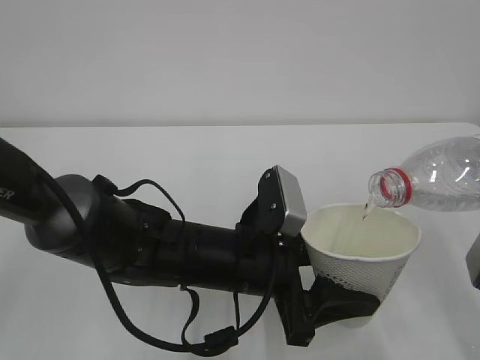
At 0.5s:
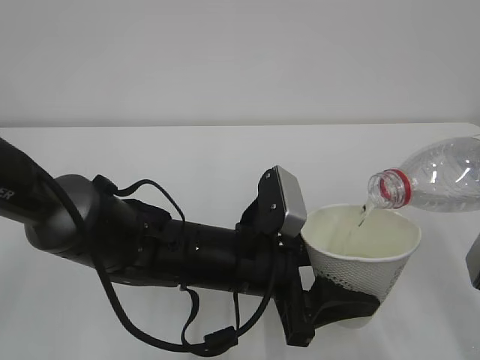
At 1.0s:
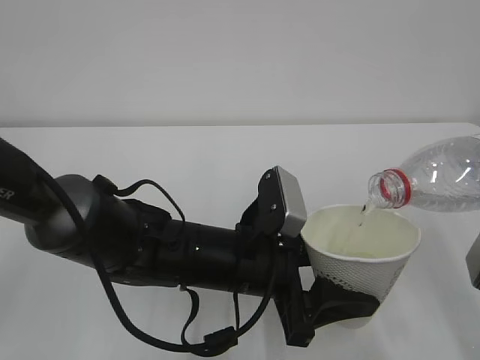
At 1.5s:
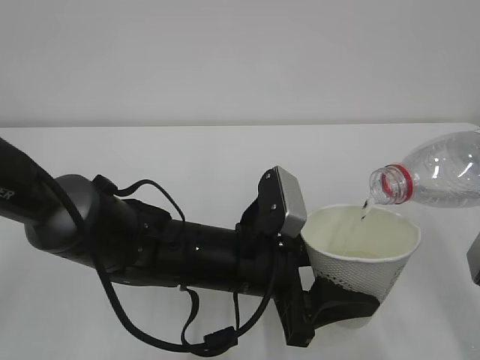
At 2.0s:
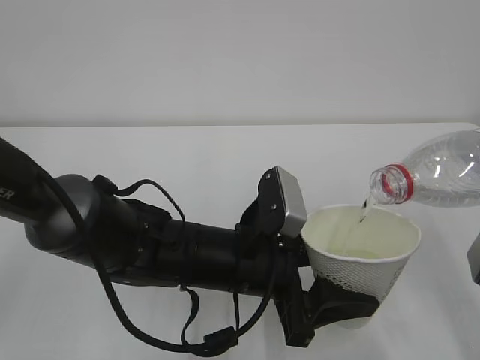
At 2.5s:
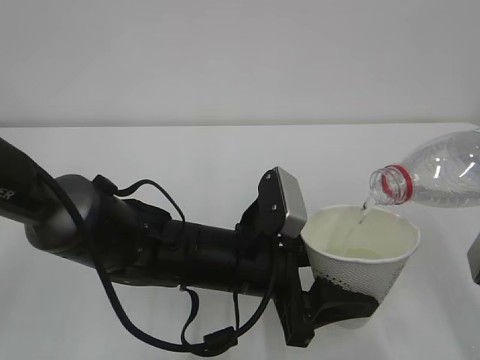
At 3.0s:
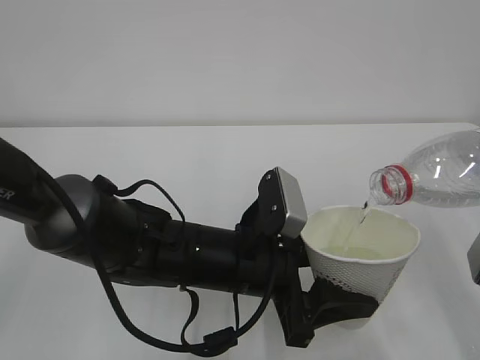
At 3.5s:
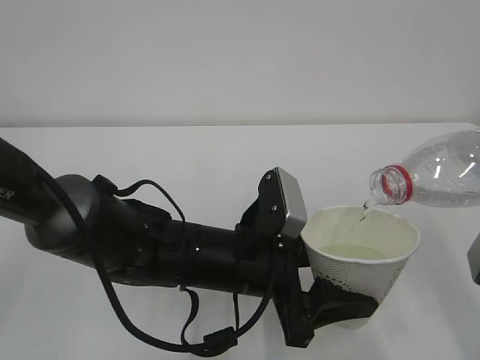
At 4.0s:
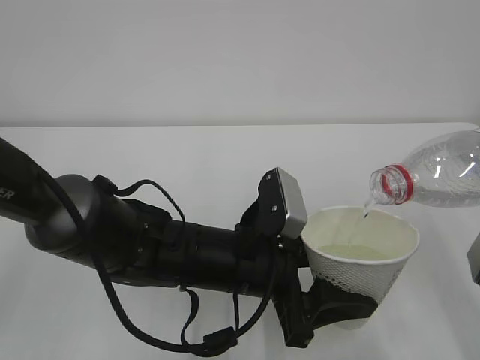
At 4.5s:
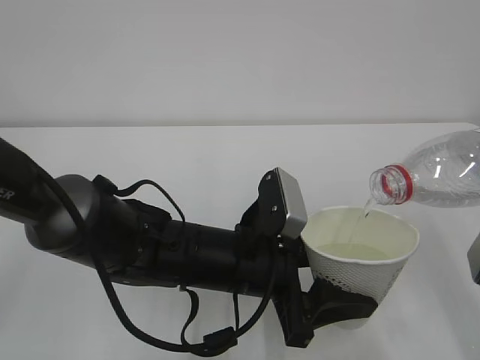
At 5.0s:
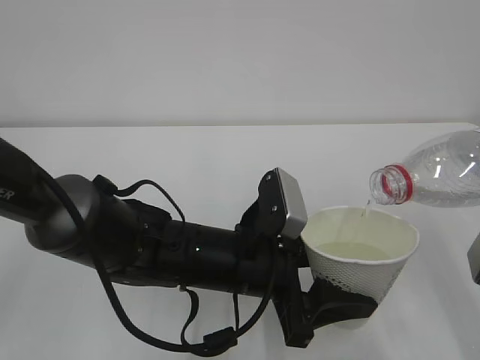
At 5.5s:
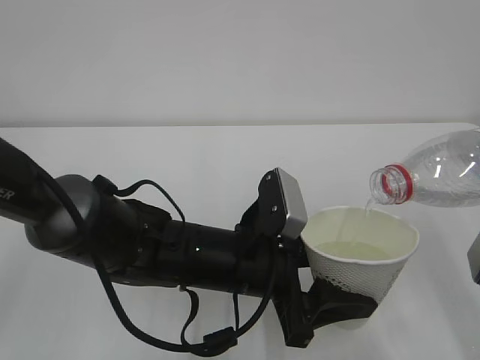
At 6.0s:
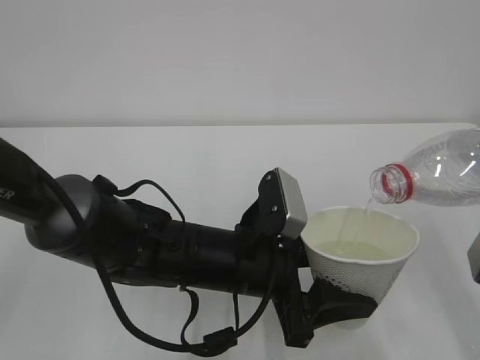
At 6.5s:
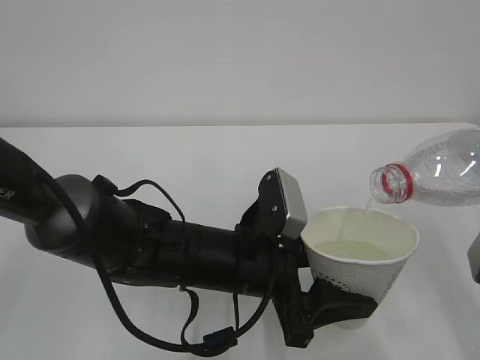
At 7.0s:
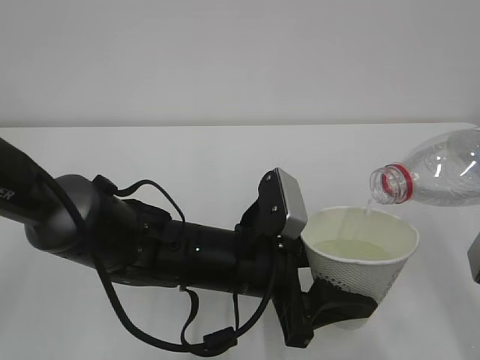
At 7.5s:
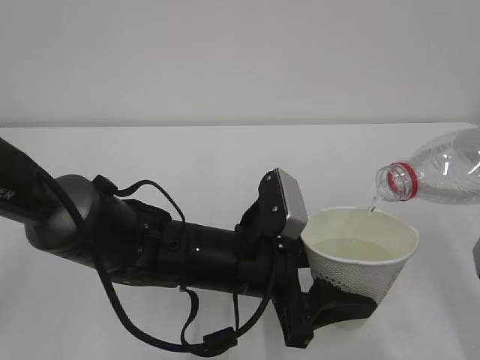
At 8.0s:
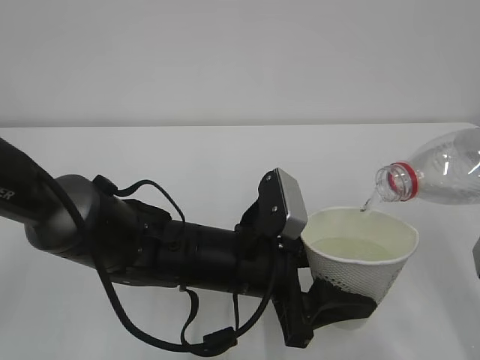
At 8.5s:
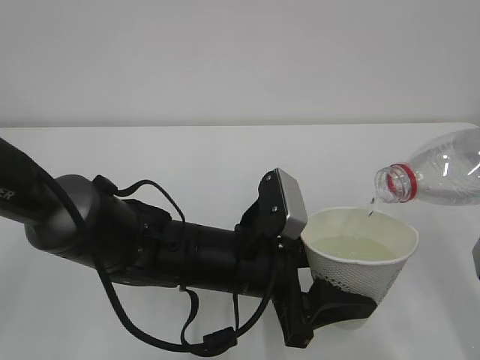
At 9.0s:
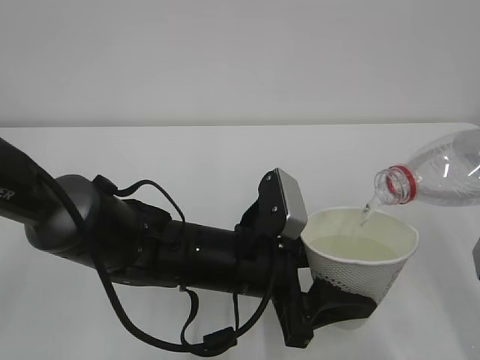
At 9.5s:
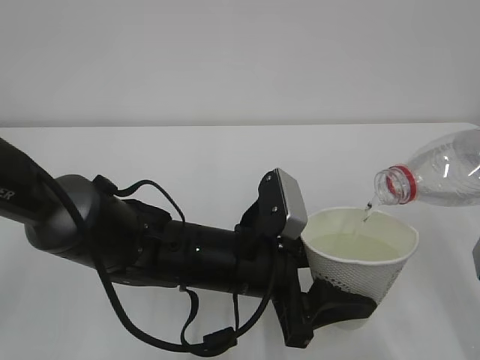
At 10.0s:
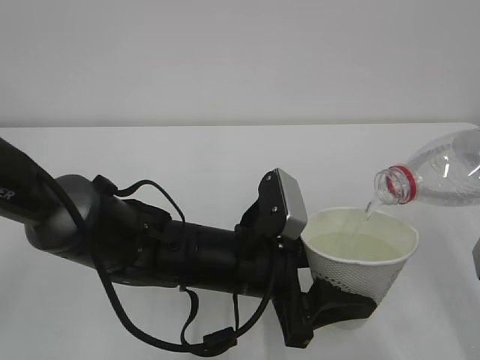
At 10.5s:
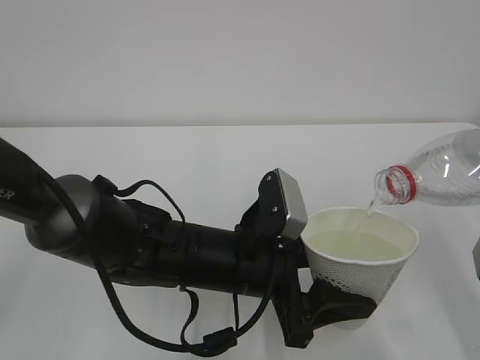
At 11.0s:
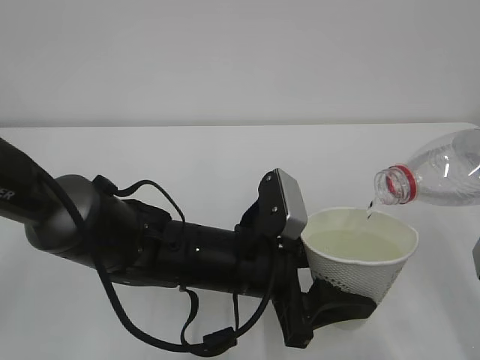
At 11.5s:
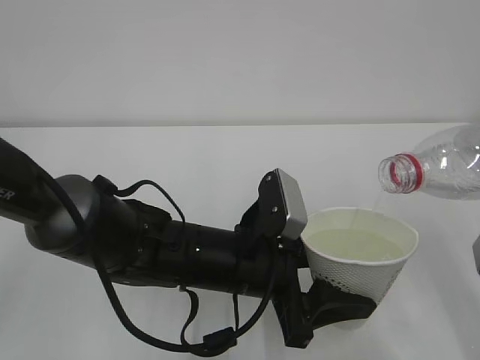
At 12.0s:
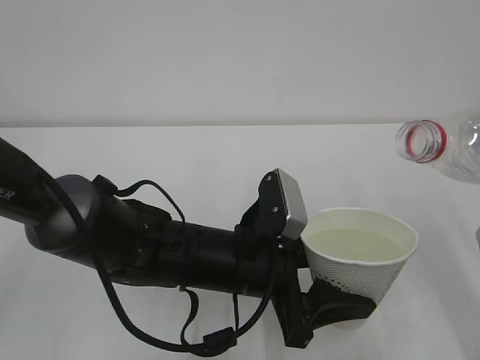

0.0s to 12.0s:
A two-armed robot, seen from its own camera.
0.0s to 8.0s: Both grippers stay put.
8.0s to 10.0s: The two grippers keep their place.
10.0s to 12.0s: The grippers make only small movements.

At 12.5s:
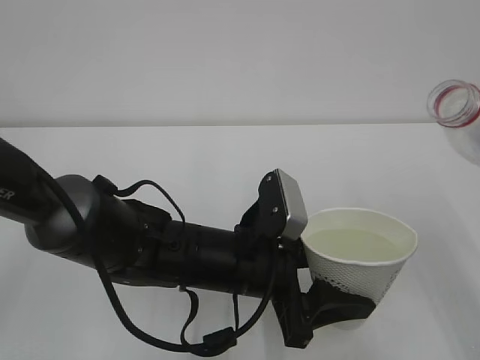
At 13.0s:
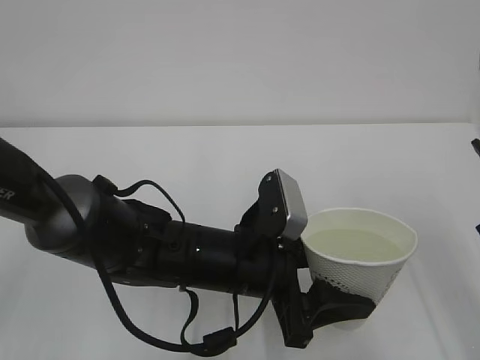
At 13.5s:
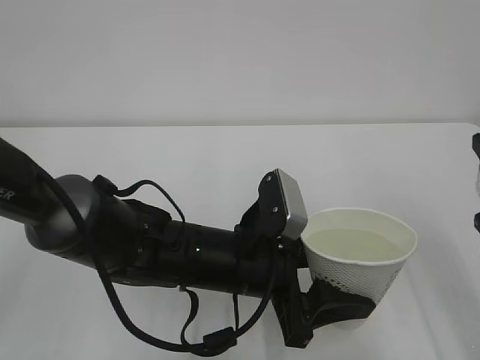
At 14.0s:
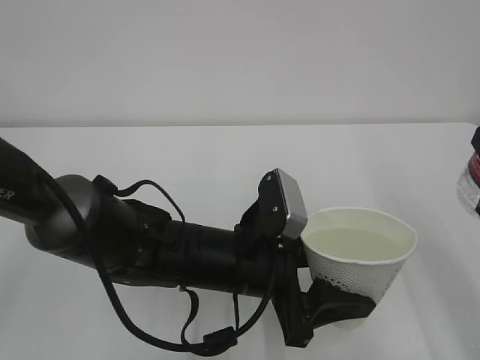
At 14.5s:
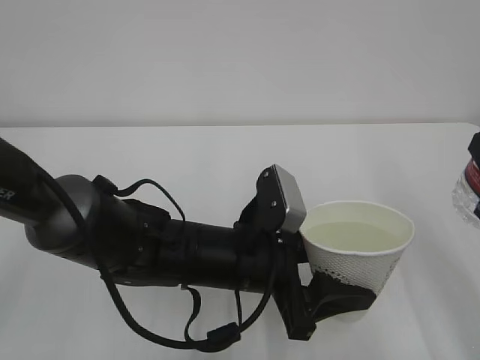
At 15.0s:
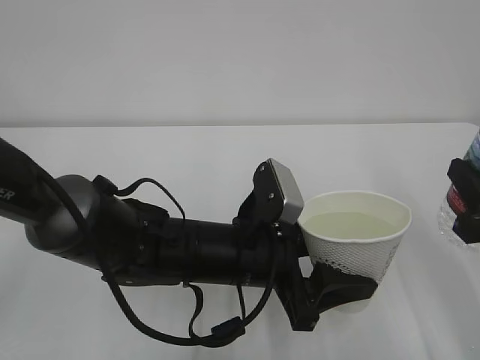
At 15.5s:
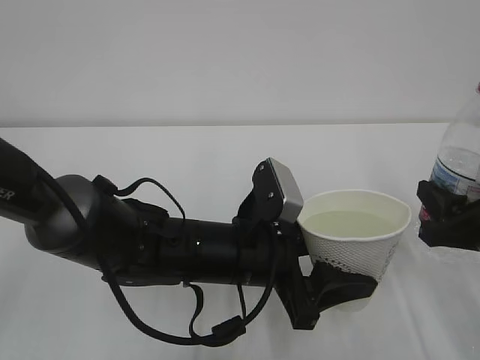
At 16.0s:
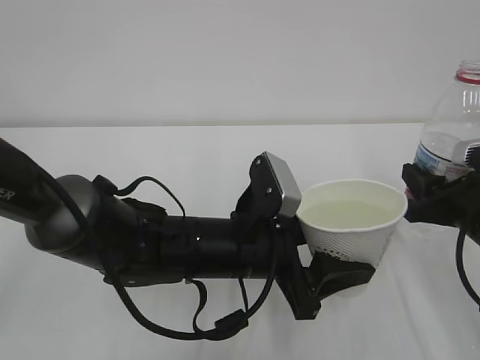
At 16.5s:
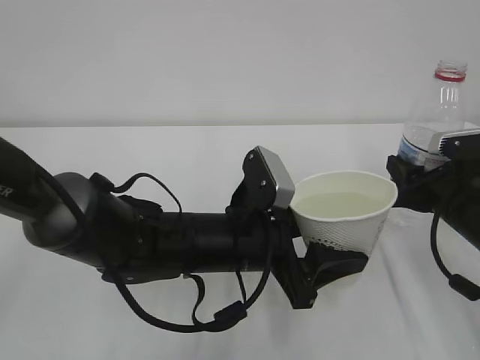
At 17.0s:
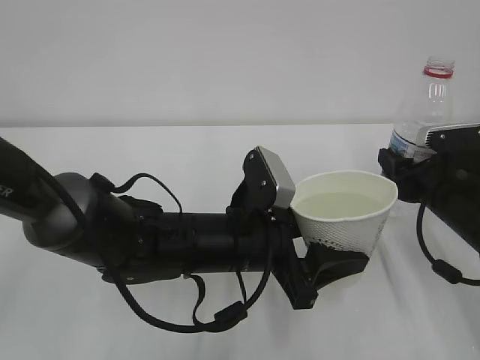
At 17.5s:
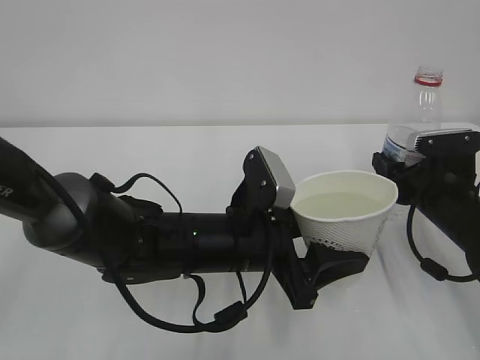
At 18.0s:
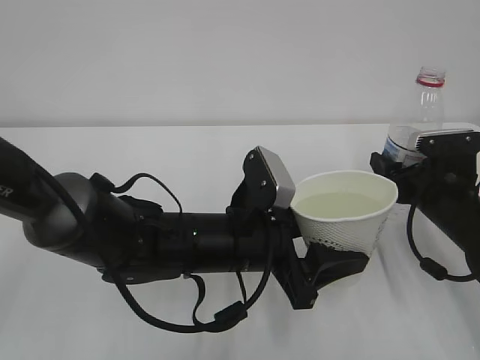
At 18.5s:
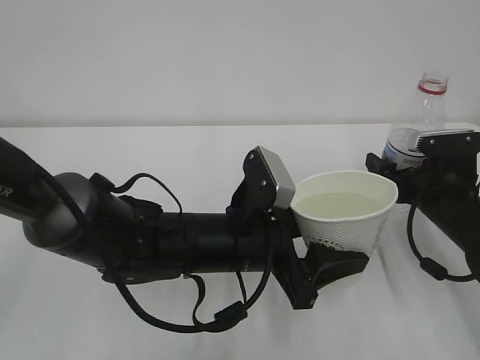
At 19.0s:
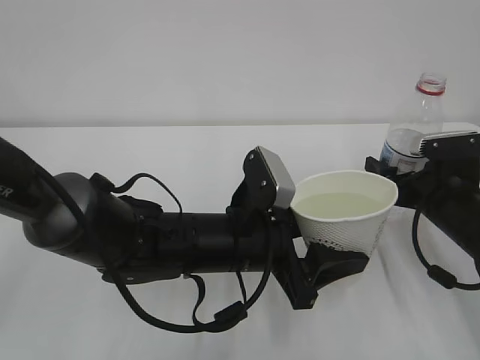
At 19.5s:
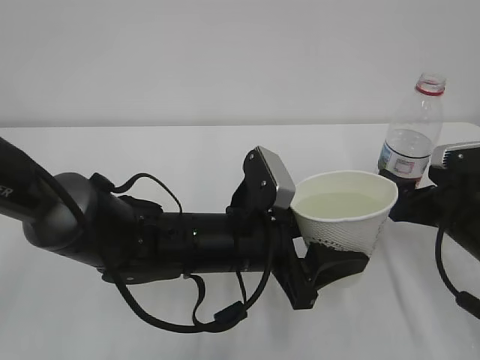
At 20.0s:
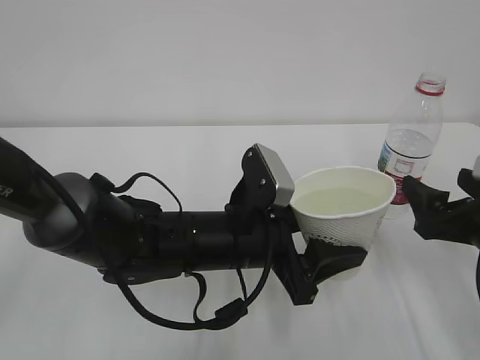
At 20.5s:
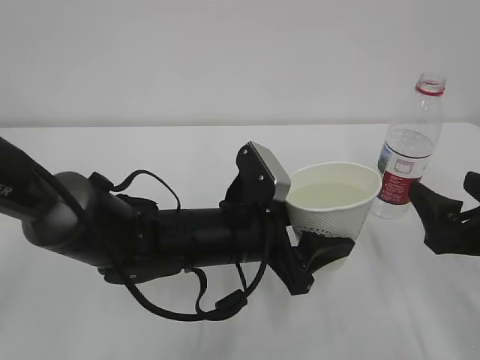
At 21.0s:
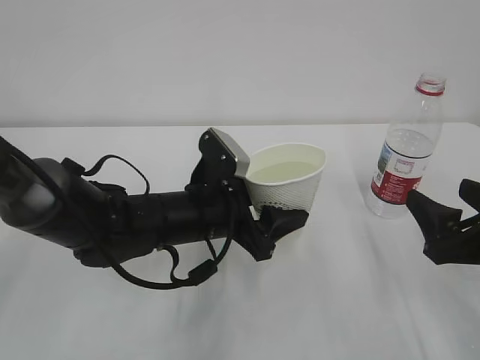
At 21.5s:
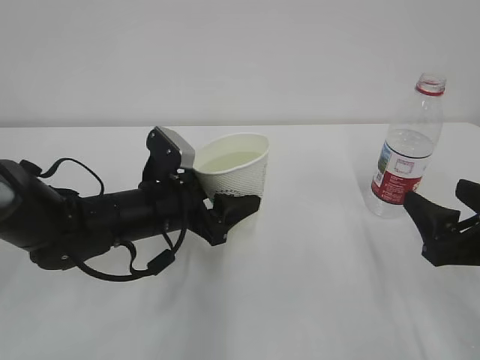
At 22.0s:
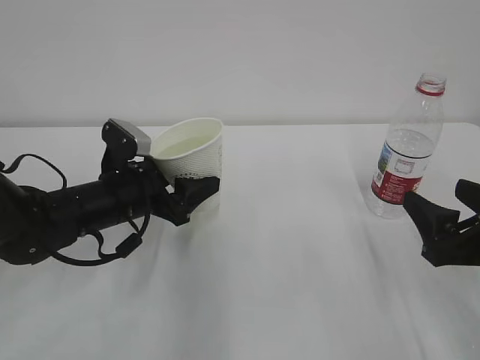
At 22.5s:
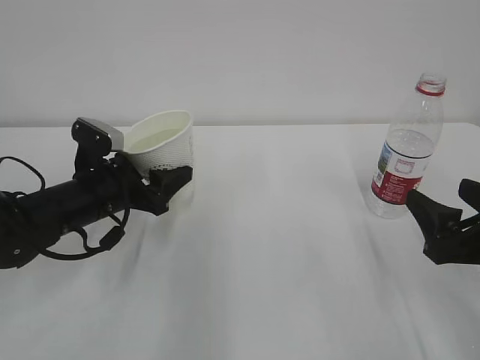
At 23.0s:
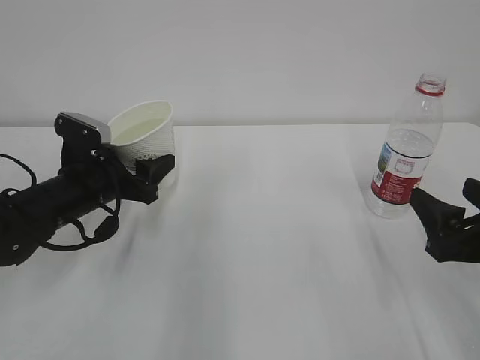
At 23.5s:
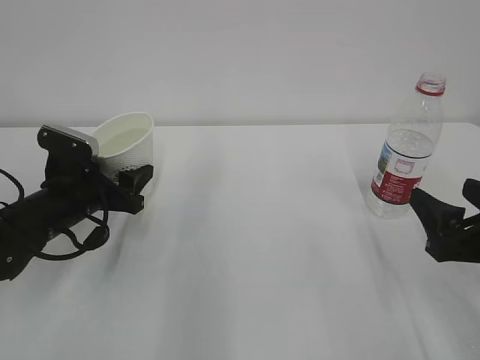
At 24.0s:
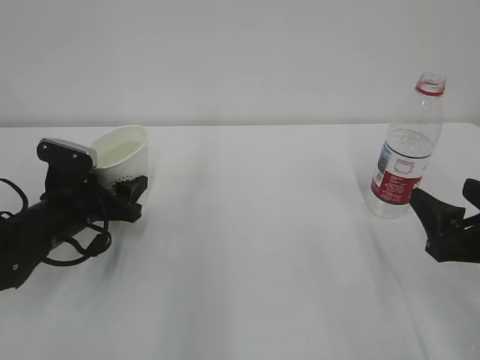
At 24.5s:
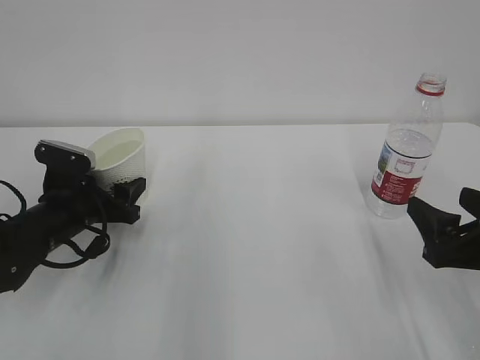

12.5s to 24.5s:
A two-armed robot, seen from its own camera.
14.5s to 16.5s: The right gripper goes approximately 15 cm forward and downward.
16.5s to 18.5s: The right gripper opens up.
18.5s to 20.5s: The right gripper goes approximately 15 cm backward and upward.
20.5s to 22.5s: The left gripper moves to the left and forward, roughly 20 cm.
22.5s to 24.5s: The left gripper moves some 5 cm.

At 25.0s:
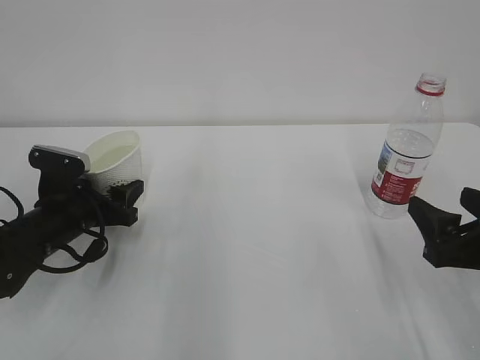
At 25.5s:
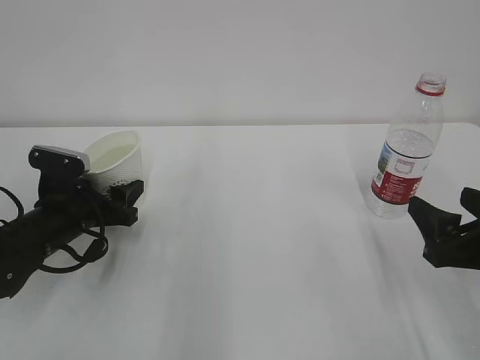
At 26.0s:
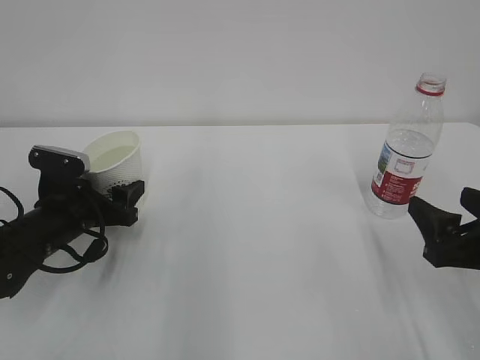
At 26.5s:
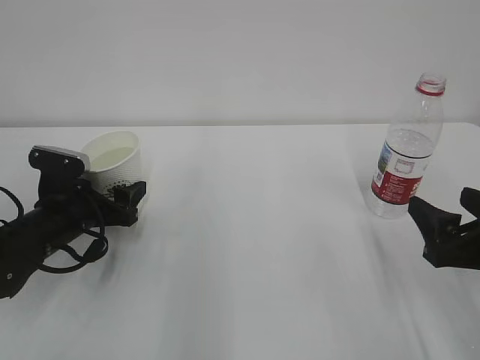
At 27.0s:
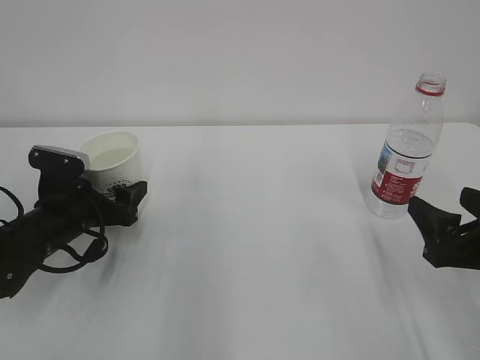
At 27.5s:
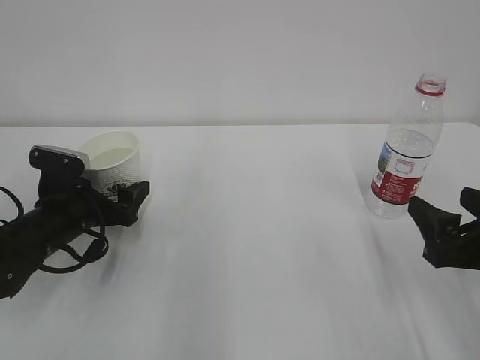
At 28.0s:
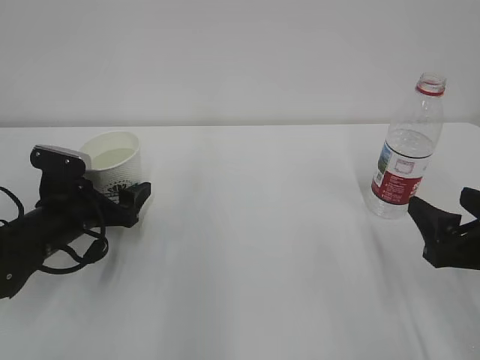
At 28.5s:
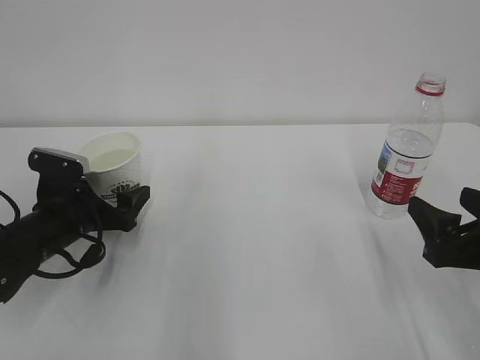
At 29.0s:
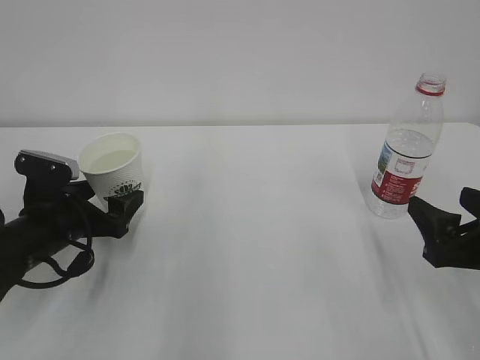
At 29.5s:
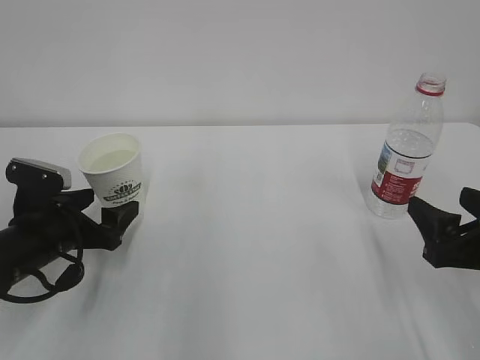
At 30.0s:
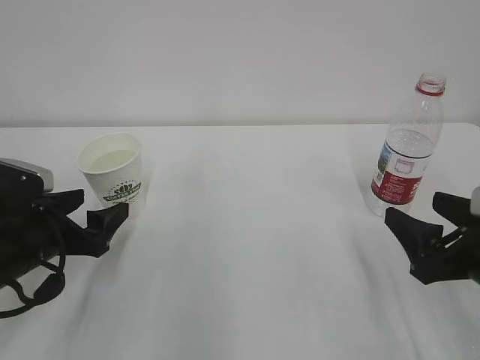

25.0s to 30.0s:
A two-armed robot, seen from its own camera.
27.5s to 30.0s: The left gripper is displaced backward by about 5 cm.
